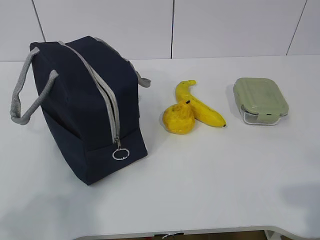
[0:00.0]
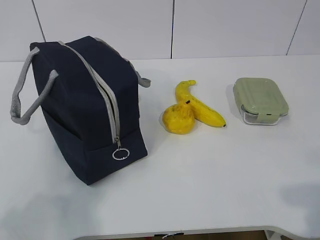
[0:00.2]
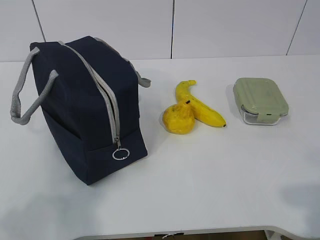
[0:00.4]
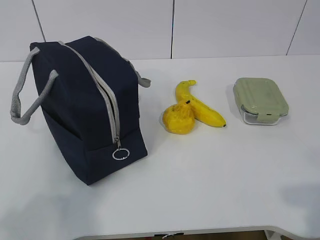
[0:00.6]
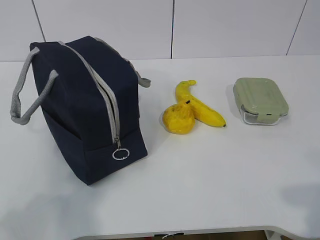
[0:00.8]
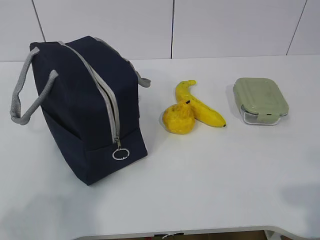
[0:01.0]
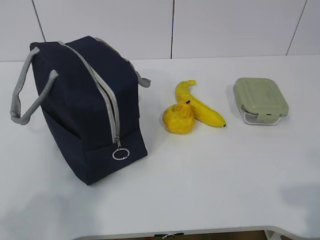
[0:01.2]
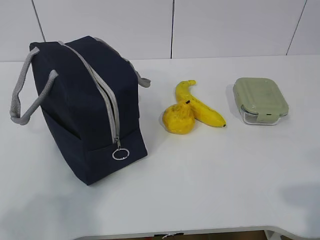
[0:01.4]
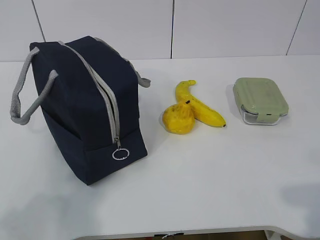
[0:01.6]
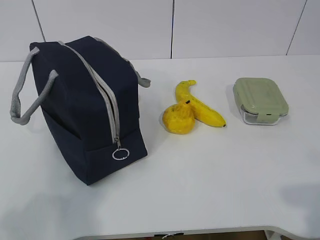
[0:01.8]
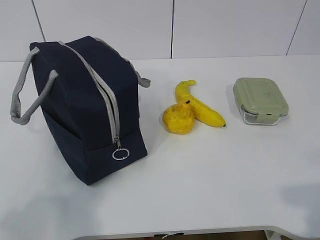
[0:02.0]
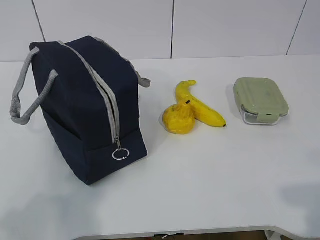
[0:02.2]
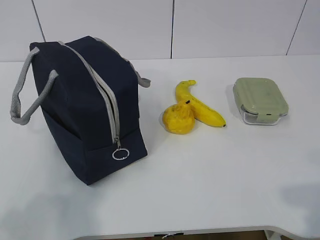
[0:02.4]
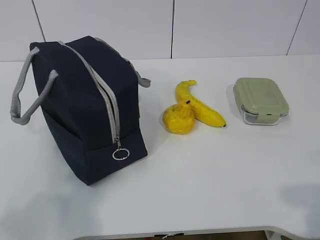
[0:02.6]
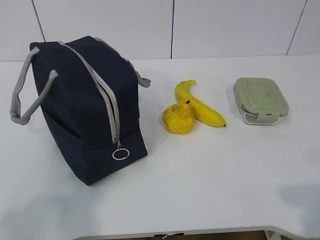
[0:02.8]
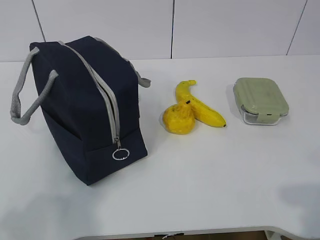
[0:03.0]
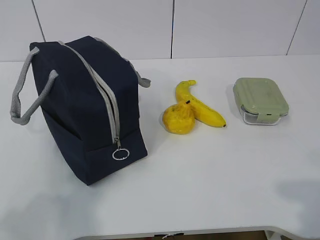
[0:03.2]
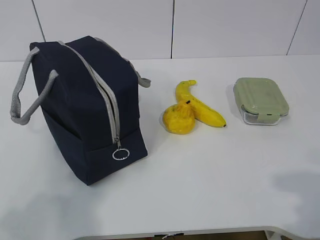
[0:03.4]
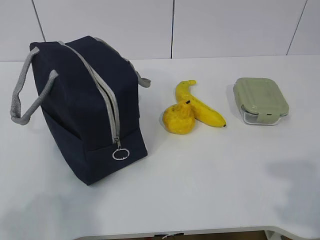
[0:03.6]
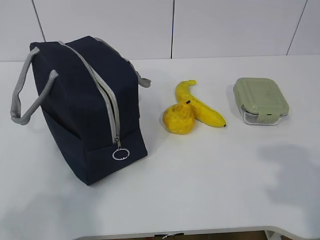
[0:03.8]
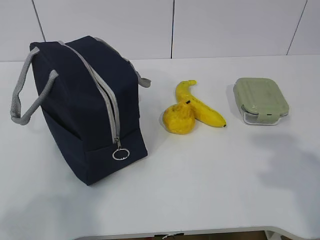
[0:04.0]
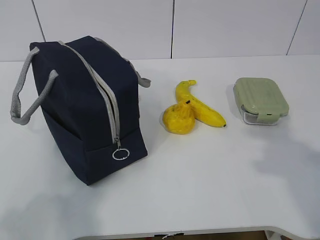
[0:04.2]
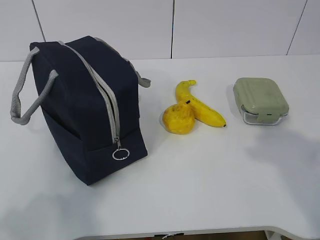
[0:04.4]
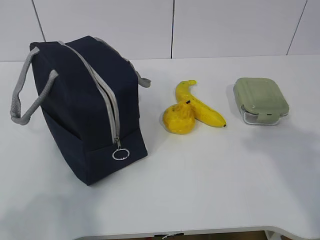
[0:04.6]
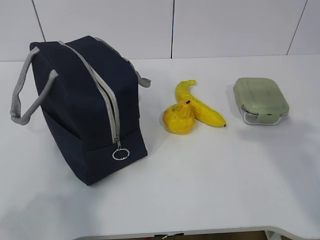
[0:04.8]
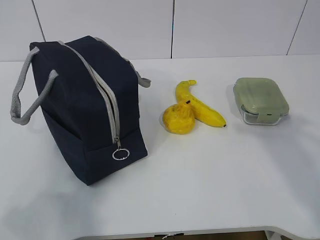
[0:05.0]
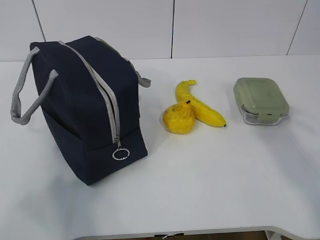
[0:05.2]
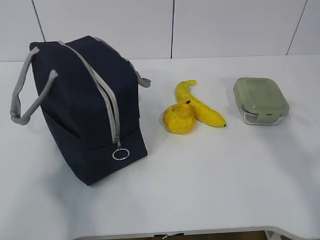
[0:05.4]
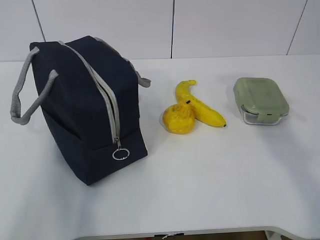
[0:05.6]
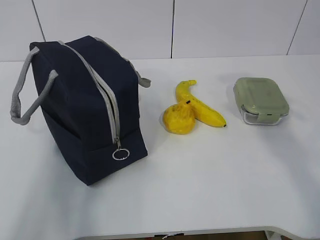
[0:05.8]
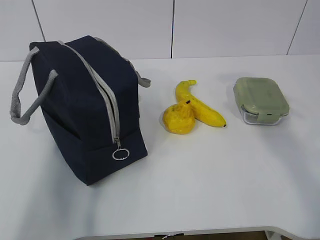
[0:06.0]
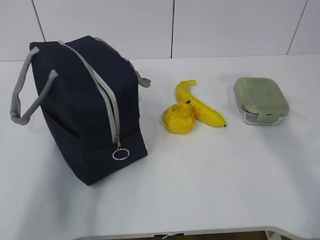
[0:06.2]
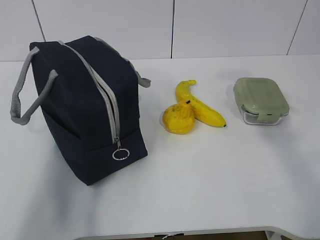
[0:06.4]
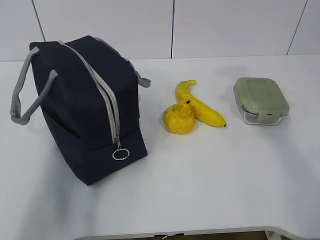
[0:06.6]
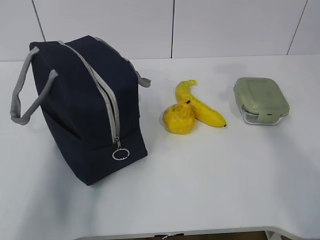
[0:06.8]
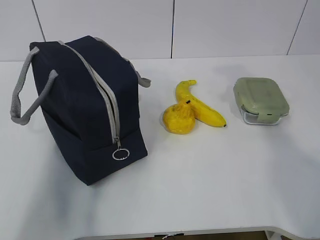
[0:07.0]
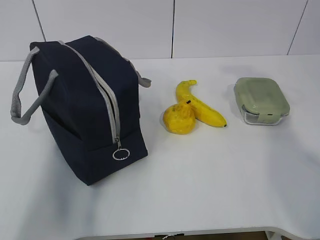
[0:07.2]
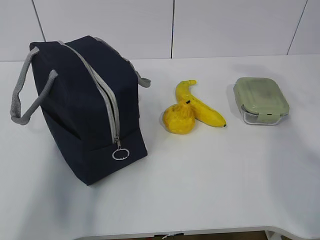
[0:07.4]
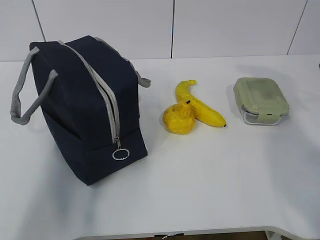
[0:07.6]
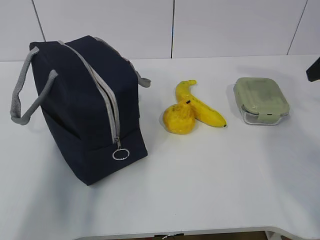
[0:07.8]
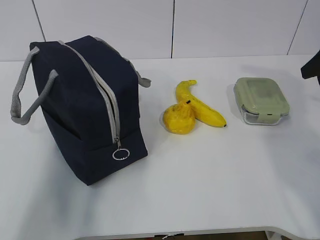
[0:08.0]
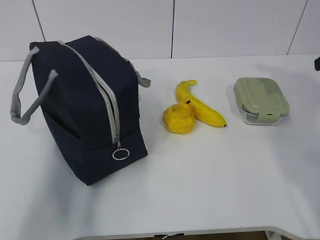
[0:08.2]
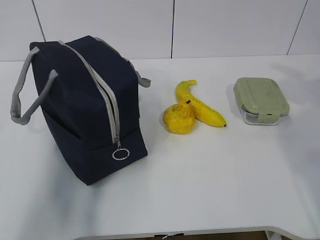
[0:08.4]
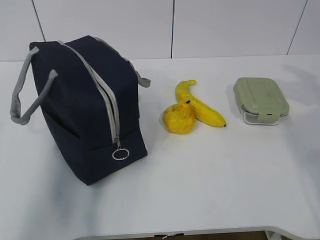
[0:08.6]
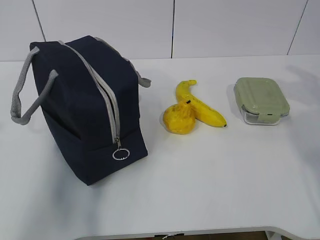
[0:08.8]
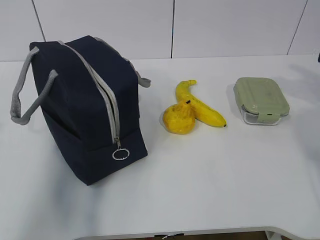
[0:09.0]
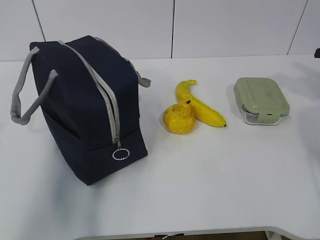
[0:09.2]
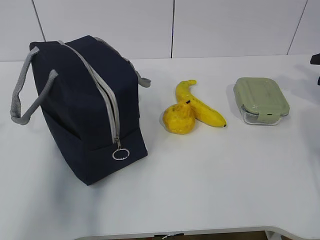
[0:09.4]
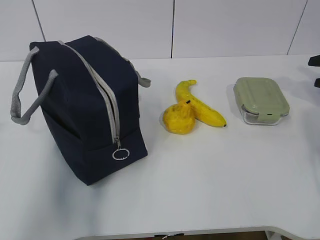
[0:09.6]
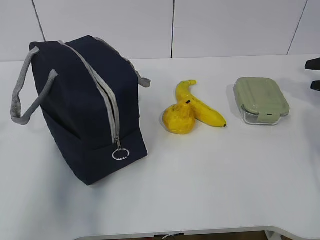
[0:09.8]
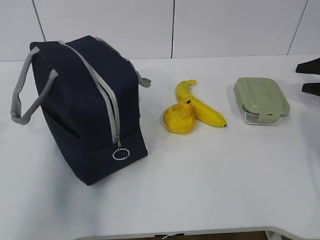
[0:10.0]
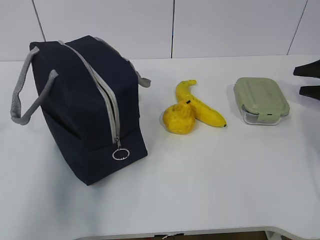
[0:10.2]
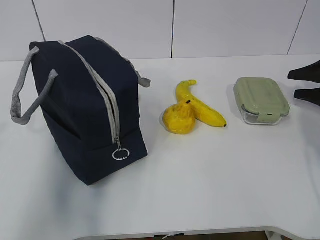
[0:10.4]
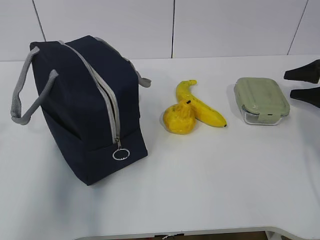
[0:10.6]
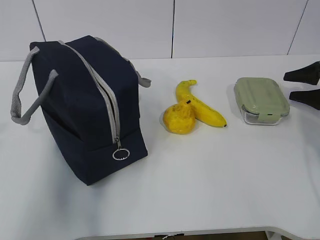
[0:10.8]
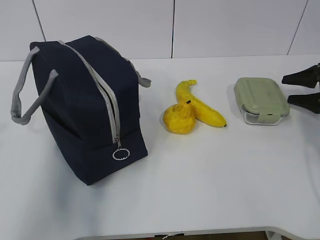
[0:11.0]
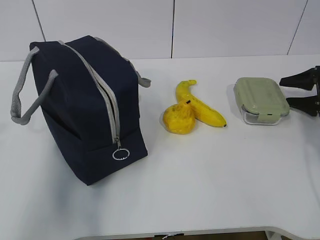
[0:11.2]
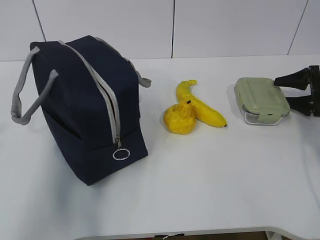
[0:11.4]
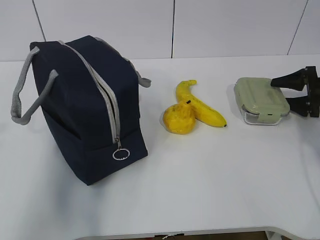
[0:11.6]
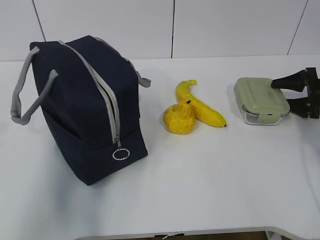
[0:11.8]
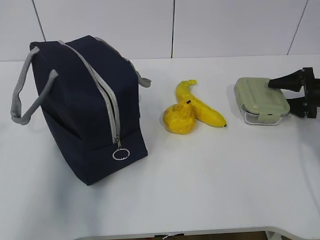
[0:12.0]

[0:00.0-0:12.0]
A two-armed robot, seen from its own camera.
Step, 0:00.0 to 0:11.6: Grab the lunch box with your right hand.
0:01.6 to 0:03.0: Both grippers stay about where they are.
0:03.0 to 0:04.4: The right gripper moves forward and upward, some 15 cm.
0:04.4 to 0:06.0: The left gripper goes some 15 cm forward and upward.
0:09.0 to 0:10.4: The right gripper heads downward, covering approximately 10 cm.
0:10.4 to 0:12.0: The grippers move only a little.

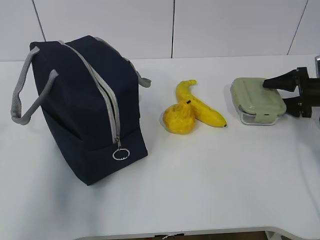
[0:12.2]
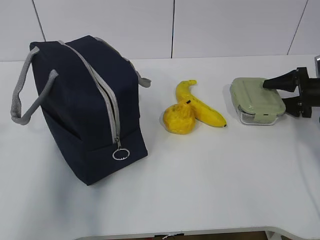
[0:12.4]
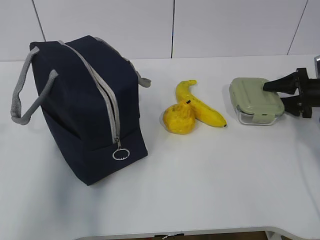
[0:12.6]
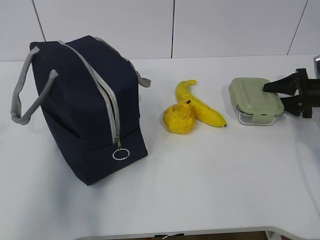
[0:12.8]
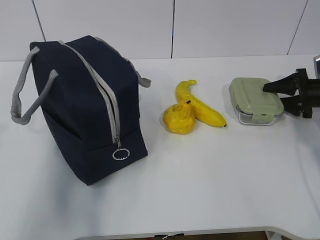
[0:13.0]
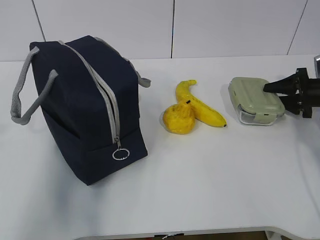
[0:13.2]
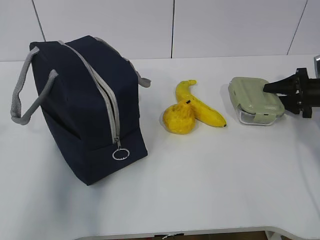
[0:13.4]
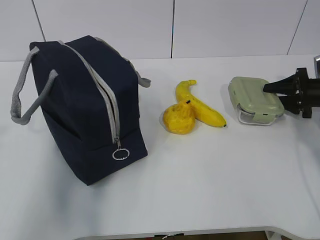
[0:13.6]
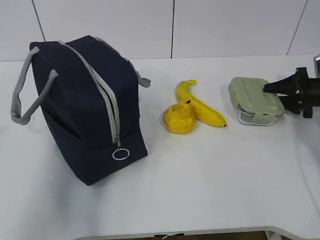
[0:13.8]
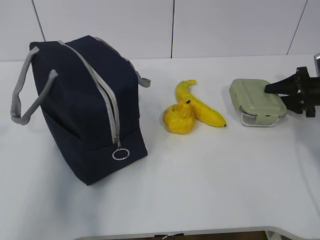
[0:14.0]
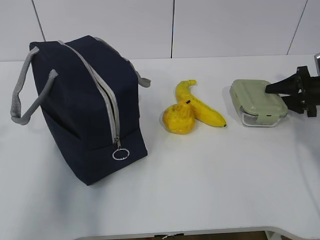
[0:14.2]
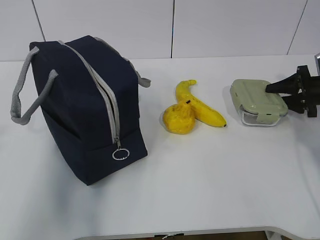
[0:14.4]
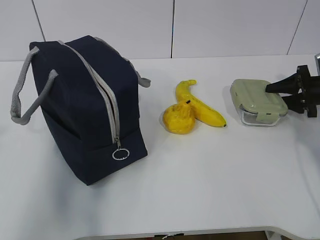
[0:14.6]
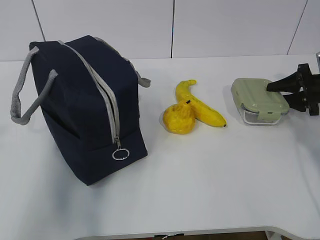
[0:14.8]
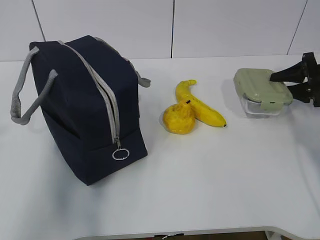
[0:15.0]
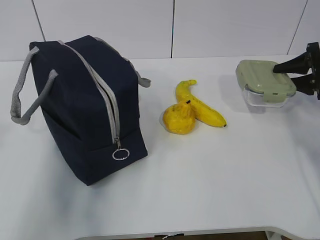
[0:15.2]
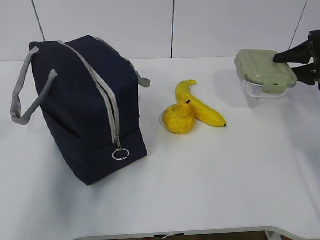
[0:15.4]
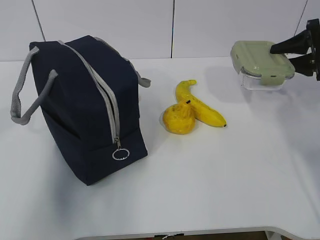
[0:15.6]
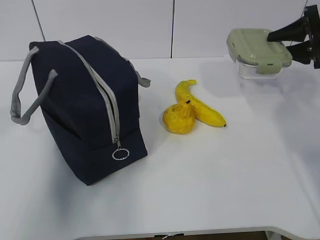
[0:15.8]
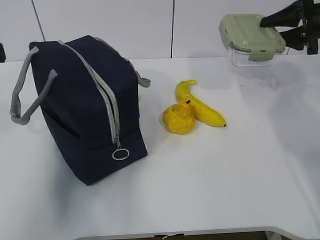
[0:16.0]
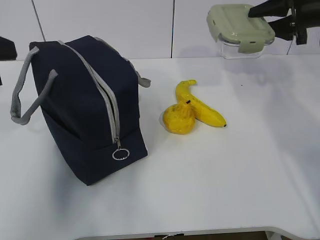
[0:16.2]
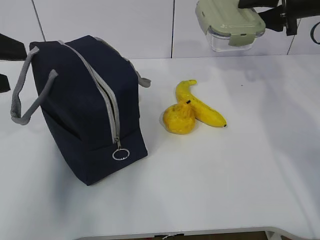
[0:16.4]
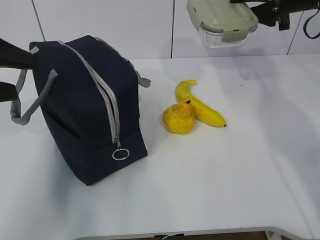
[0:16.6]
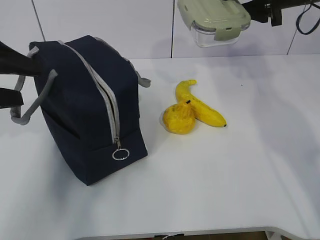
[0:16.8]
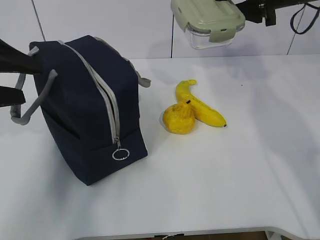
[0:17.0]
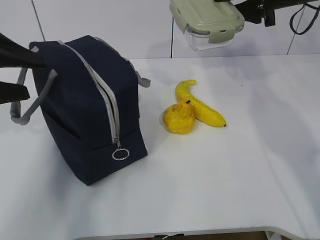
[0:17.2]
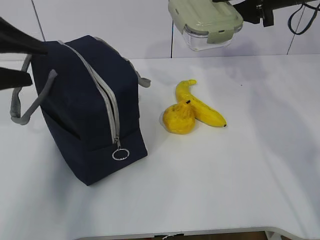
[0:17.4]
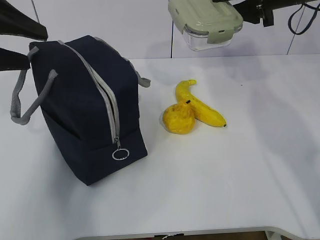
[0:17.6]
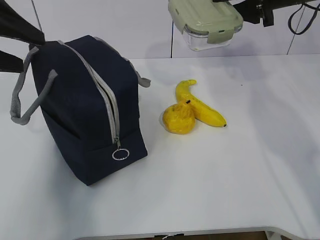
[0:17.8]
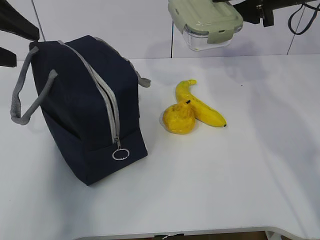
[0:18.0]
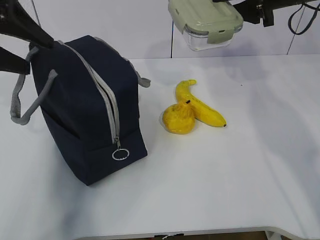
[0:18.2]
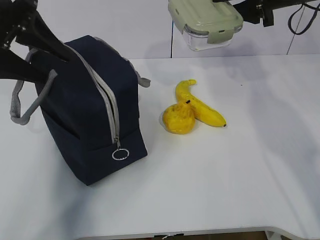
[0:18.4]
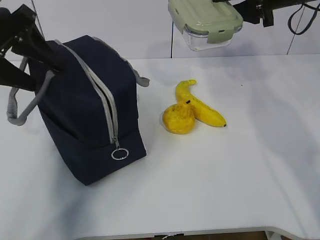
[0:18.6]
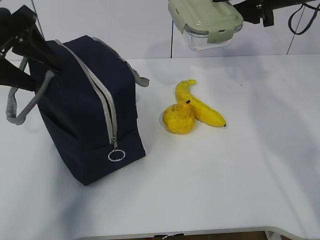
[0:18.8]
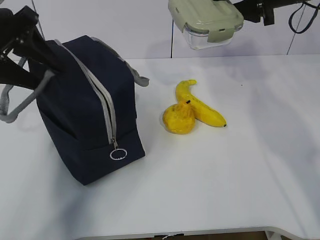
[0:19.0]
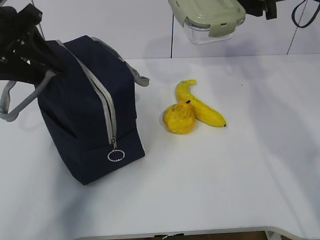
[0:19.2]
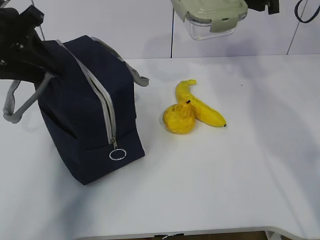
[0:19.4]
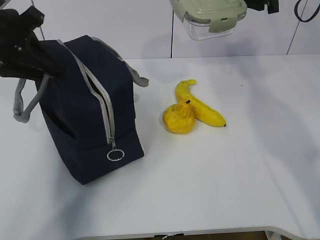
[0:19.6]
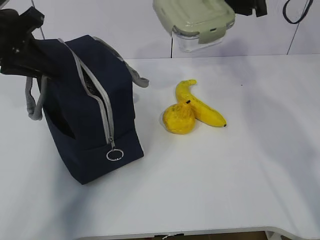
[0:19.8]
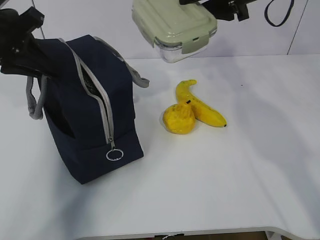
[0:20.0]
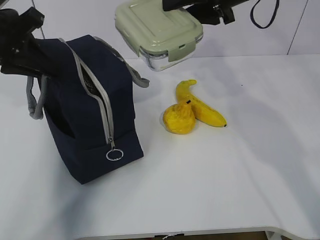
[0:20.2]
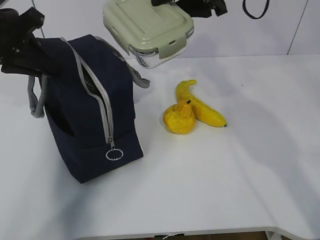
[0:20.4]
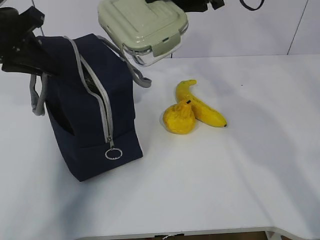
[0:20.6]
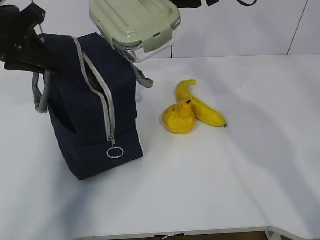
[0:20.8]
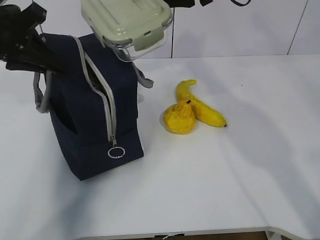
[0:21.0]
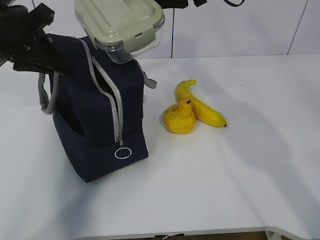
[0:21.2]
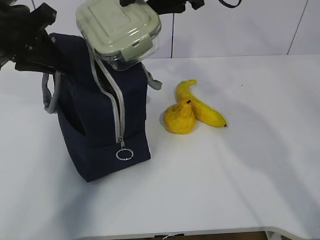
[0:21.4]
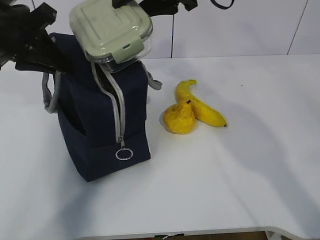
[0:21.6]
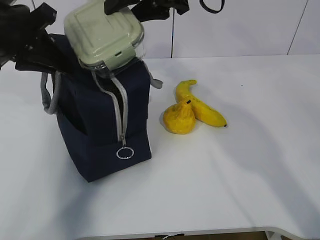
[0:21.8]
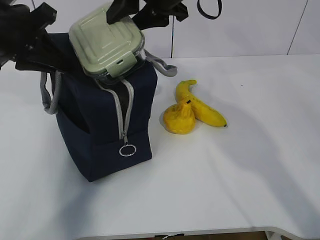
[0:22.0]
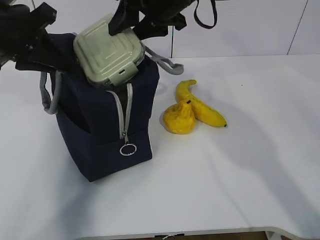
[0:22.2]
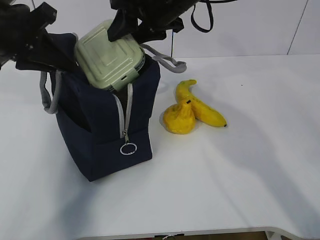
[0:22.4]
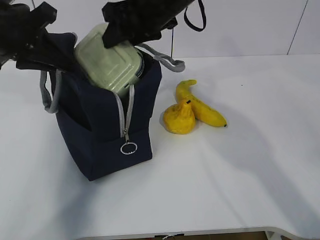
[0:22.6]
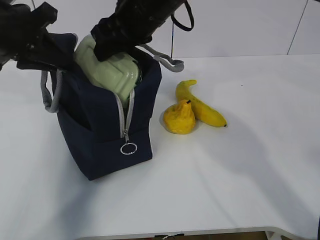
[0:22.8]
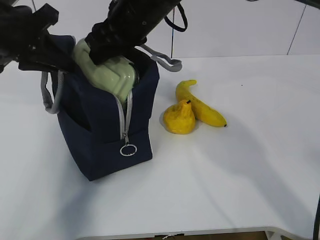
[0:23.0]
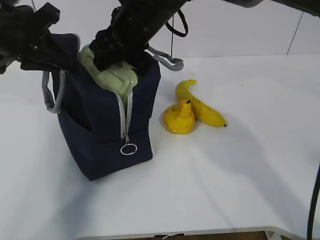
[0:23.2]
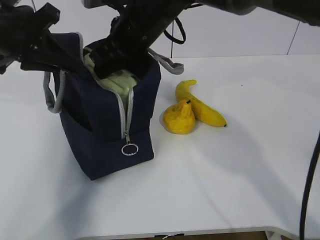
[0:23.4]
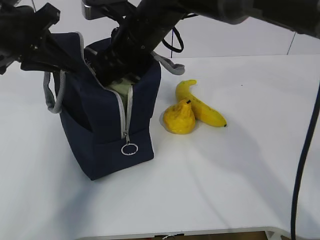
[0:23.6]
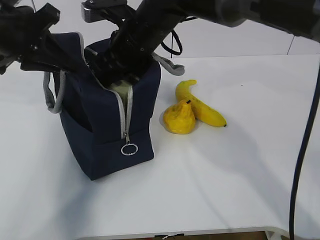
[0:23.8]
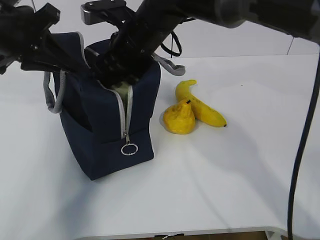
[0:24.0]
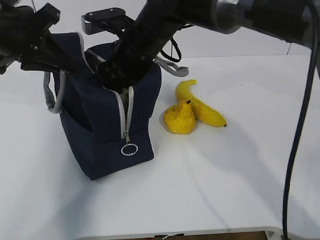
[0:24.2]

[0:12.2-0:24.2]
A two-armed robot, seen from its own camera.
Step, 0:12.2 to 0:18.0: Grab the lunch bag with your left hand.
Step, 0:18.2 to 0:21.2: Place it into the bag with your right hand.
0:12.2 to 0:13.8: The right gripper closes.
0:13.8 to 0:15.2: The right gripper moves upward, about 5 cm.
0:15.2 to 0:16.6: The left gripper moves forward, some 10 cm, and opens its fingers, while the right gripper moves upward and to the left, about 20 cm.
0:16.6 to 0:18.2: The left gripper goes some 10 cm forward.
0:18.2 to 0:19.8: The left gripper closes its fingers.
0:19.8 to 0:21.2: The right gripper is displaced to the left by roughly 15 cm.
0:21.2 to 0:22.6: The right gripper shifts approximately 10 cm to the left and downward.
0:22.6 to 0:24.2: The right gripper goes some 5 cm downward.
